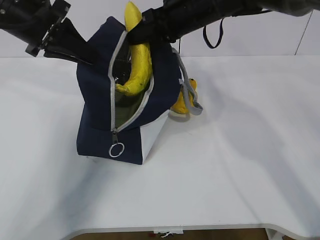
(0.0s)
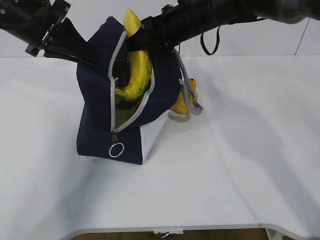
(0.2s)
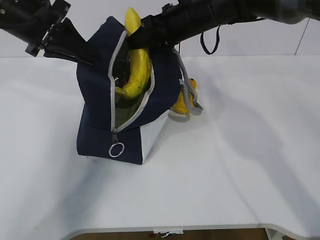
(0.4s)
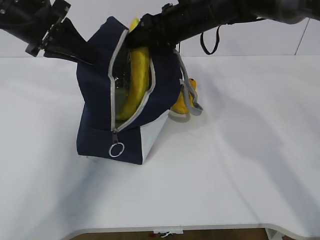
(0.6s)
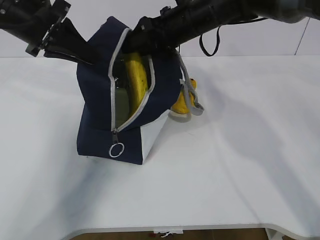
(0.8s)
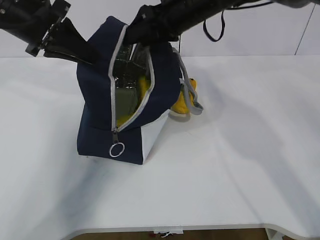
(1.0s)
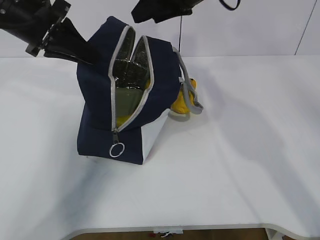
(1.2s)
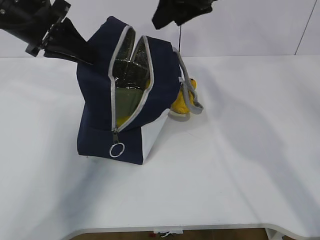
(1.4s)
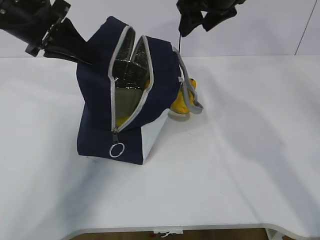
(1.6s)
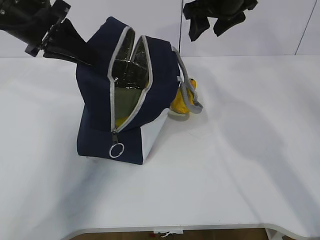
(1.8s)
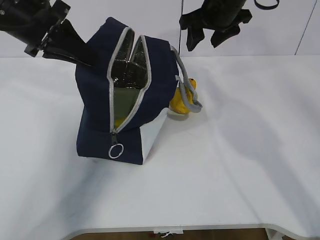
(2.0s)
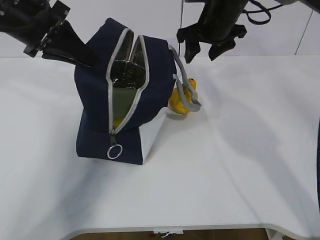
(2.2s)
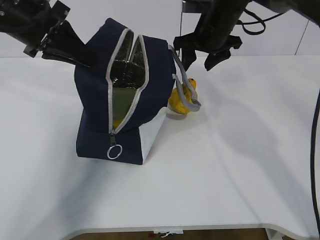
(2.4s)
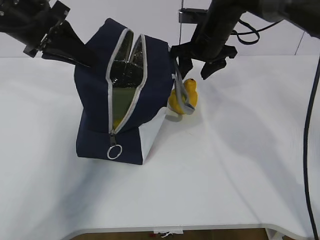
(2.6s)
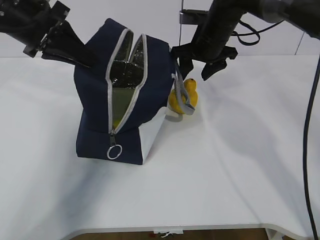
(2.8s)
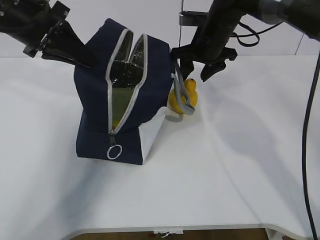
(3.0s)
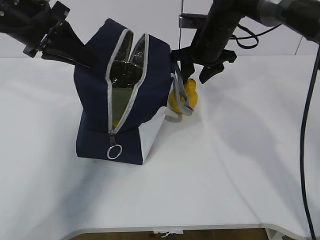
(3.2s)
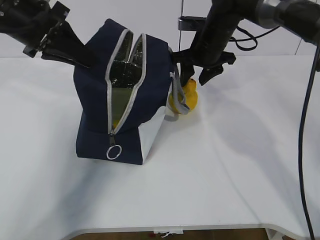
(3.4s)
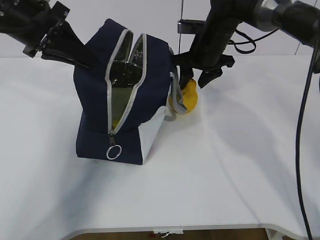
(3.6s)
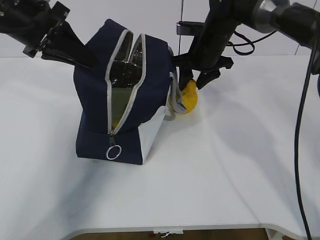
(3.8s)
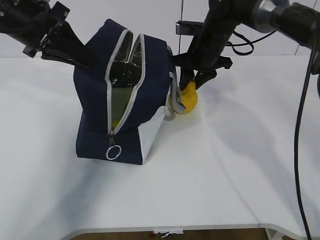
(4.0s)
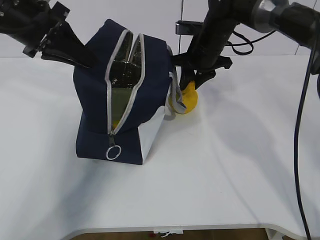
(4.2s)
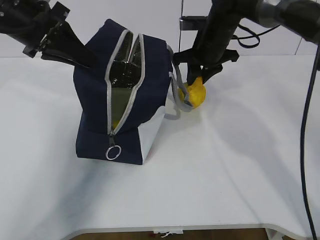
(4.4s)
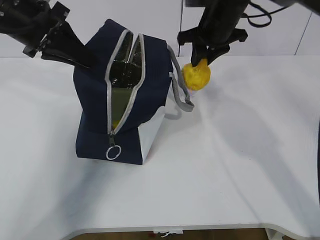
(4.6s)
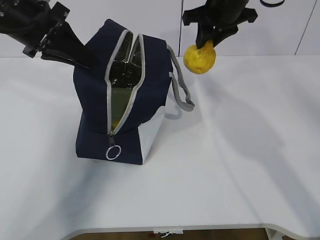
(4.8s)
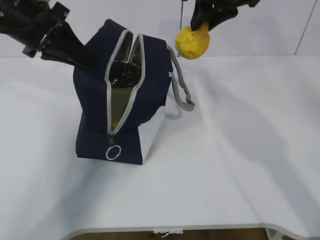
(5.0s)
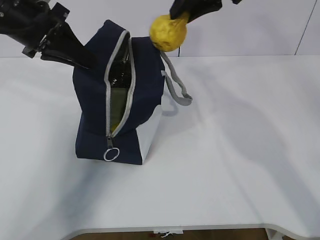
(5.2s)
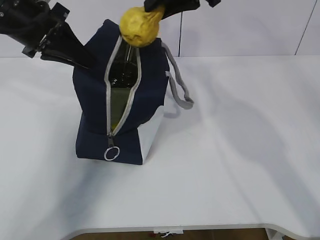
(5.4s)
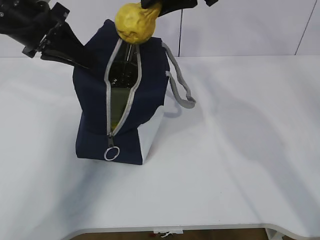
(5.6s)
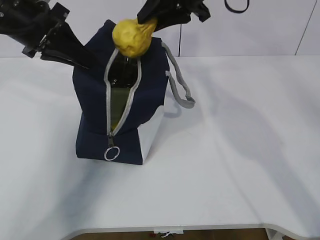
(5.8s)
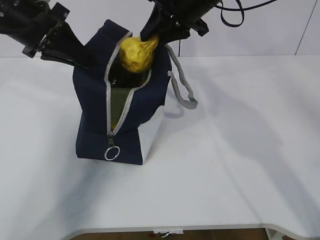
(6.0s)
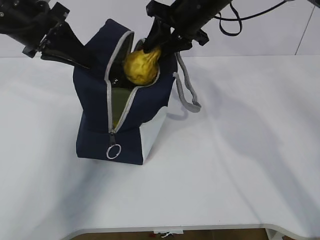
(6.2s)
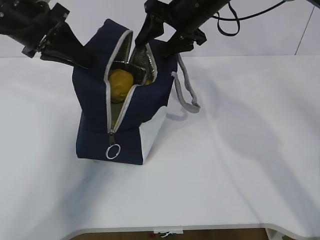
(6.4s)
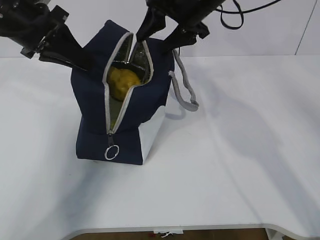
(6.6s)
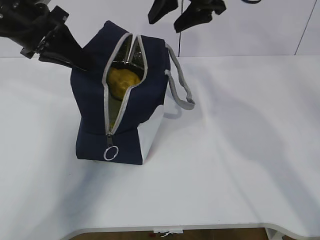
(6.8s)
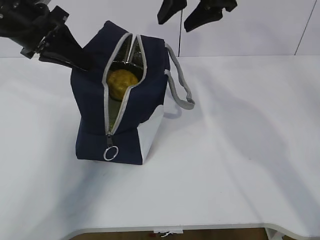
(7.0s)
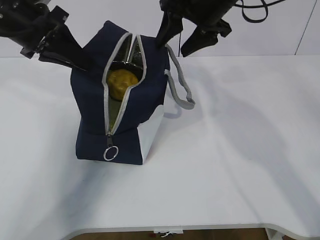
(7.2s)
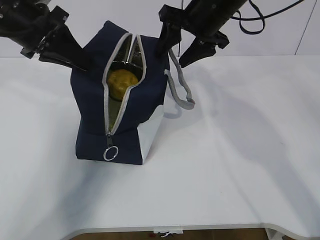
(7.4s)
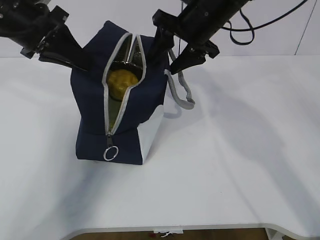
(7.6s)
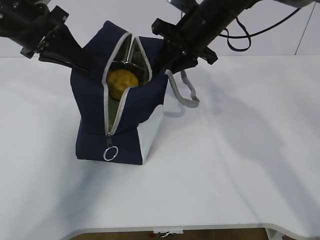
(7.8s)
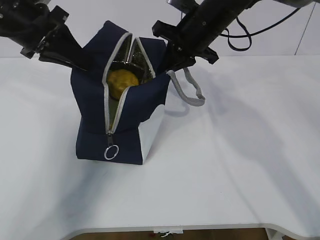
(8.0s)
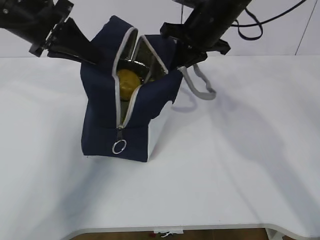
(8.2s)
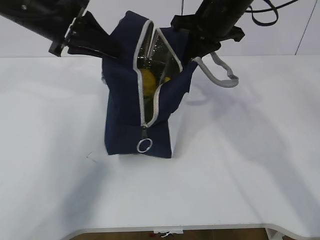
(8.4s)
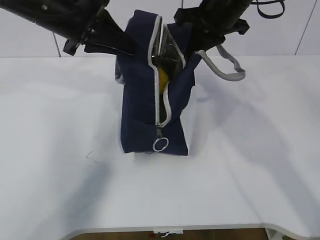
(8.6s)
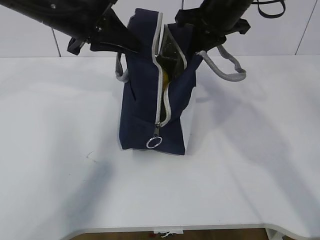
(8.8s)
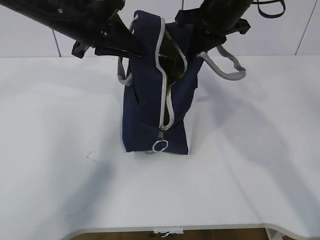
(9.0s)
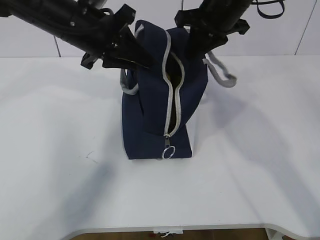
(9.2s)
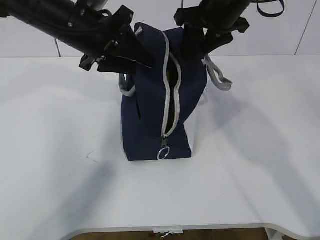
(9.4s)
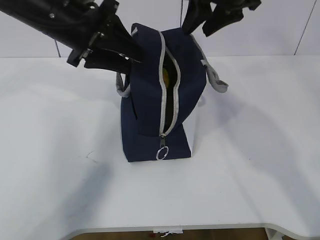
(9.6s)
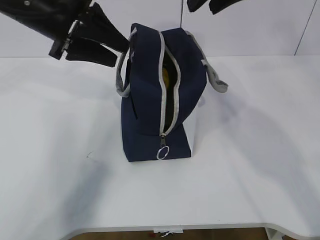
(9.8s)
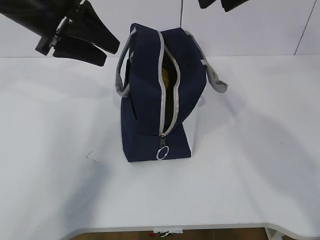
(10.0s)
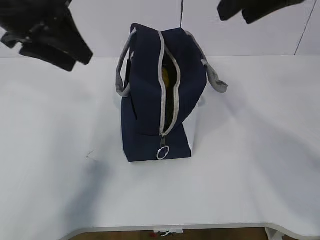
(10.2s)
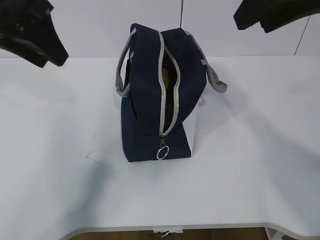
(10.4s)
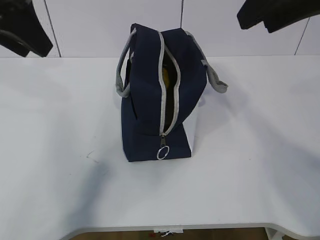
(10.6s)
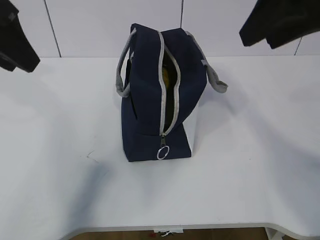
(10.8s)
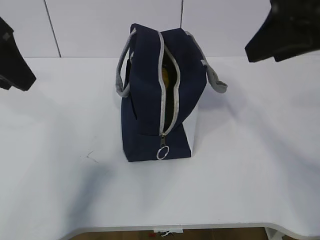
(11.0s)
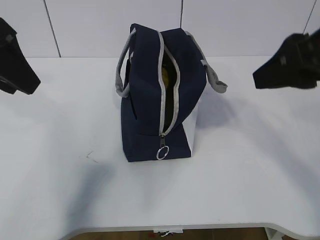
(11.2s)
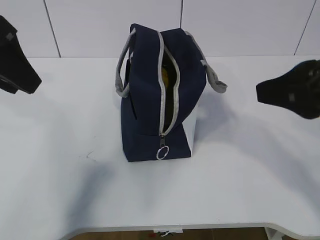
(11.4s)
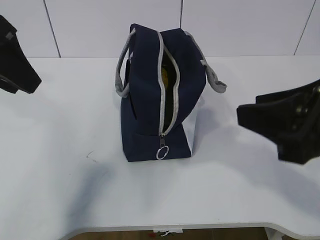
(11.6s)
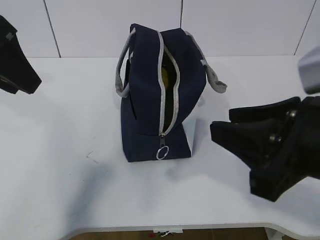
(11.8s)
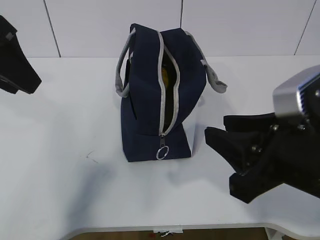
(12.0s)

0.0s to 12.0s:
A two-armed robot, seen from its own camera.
Step, 1.8s to 2.4s: Grab the lunch bag with your right hand.
Step, 2.6s to 3.8s: Move the lunch bag to the right.
0.0s to 1.6s: The right gripper travels upward by about 5 cm, and opens its fingers.
1.6s to 3.0s: The right gripper goes about 10 cm downward.
3.0s to 4.4s: The right gripper closes.
4.4s to 6.0s: The right gripper goes about 10 cm upward.
6.0s to 7.6s: The right gripper opens.
7.6s to 9.0s: The right gripper closes its fingers. Meanwhile the left gripper is displaced to the right by about 10 cm.
9.0s to 10.4s: The left gripper is displaced to the left, backward and upward by roughly 10 cm, and opens its fingers. The right gripper shifts about 20 cm backward and upward, and opens up.
10.4s to 12.0s: The left gripper is displaced backward by some 5 cm. Meanwhile the right gripper heads downward and backward, covering about 20 cm.

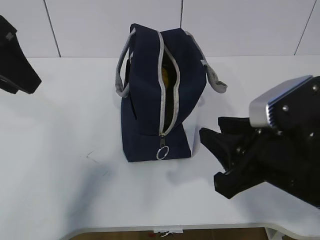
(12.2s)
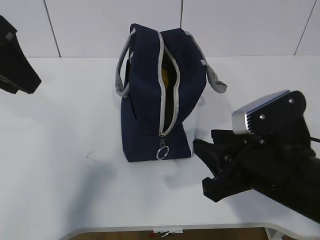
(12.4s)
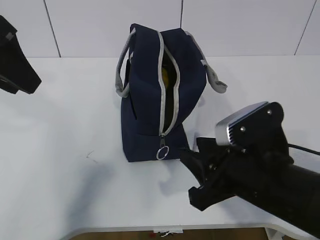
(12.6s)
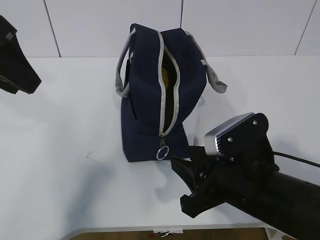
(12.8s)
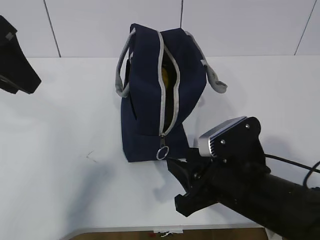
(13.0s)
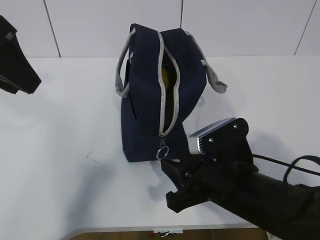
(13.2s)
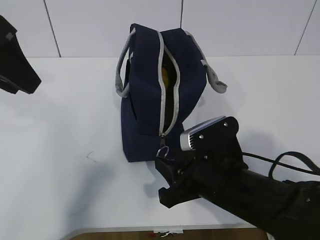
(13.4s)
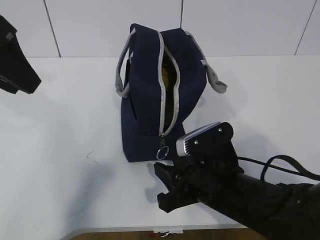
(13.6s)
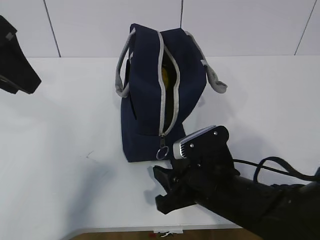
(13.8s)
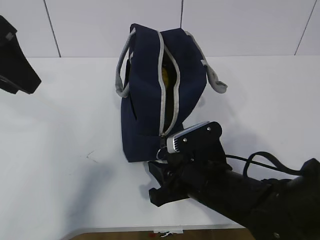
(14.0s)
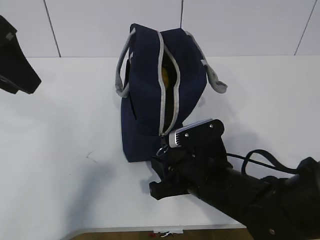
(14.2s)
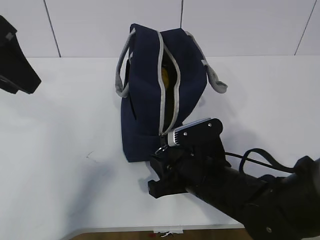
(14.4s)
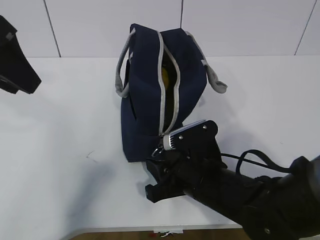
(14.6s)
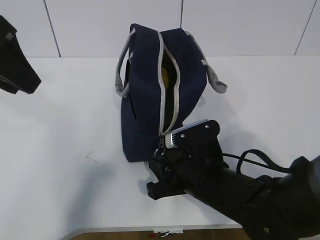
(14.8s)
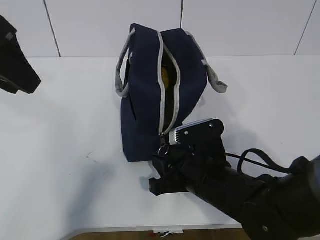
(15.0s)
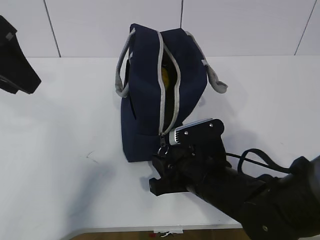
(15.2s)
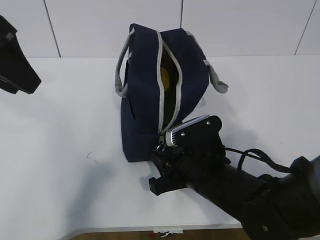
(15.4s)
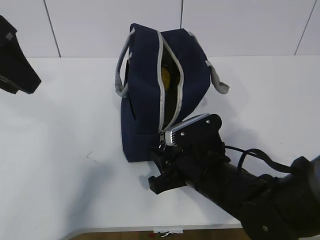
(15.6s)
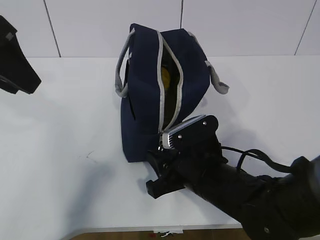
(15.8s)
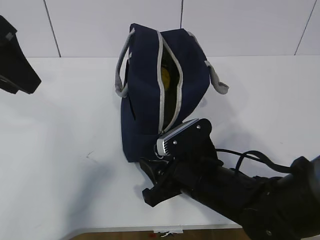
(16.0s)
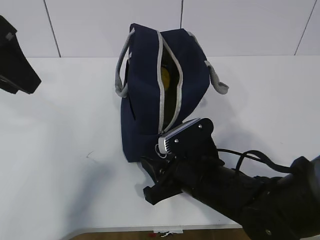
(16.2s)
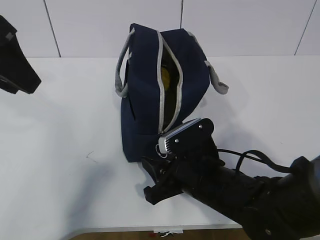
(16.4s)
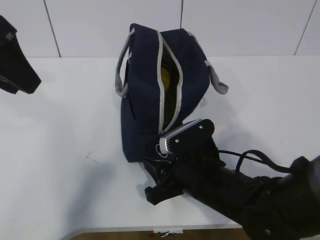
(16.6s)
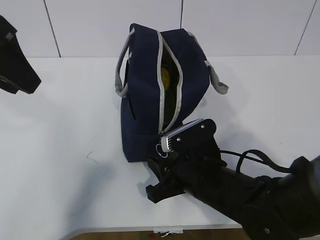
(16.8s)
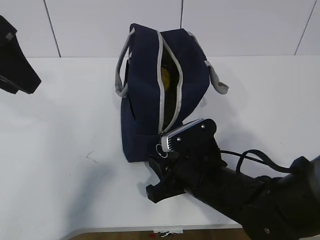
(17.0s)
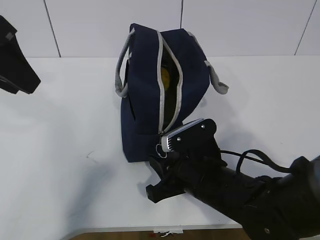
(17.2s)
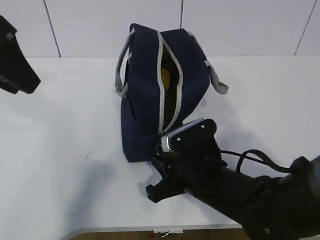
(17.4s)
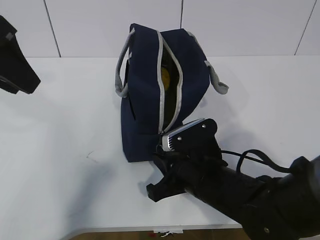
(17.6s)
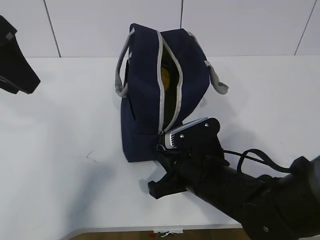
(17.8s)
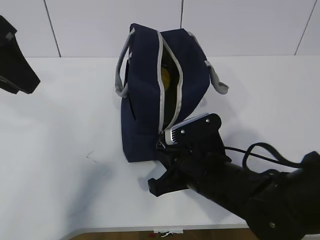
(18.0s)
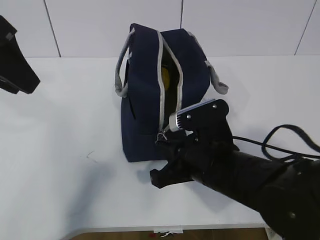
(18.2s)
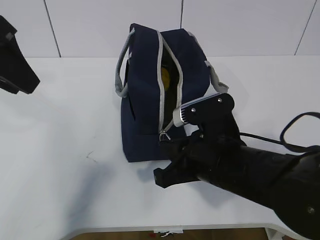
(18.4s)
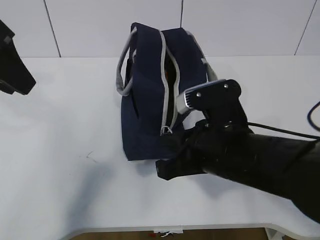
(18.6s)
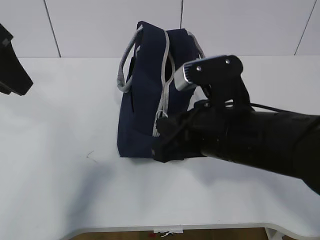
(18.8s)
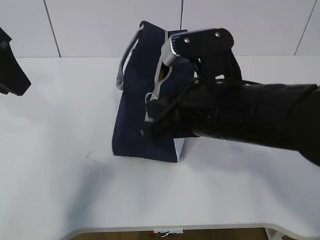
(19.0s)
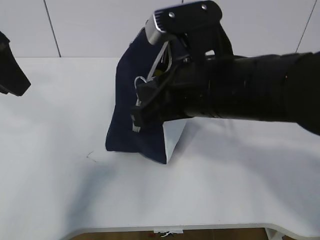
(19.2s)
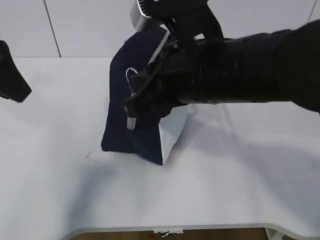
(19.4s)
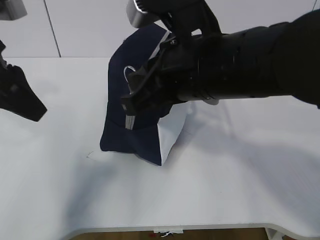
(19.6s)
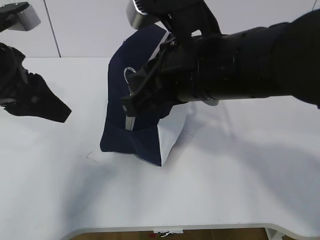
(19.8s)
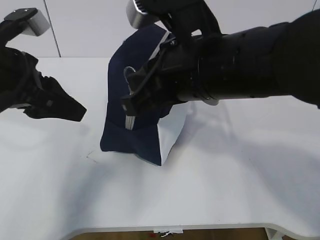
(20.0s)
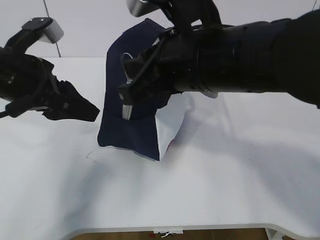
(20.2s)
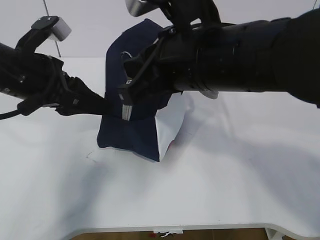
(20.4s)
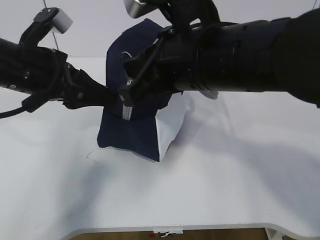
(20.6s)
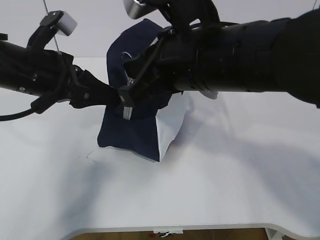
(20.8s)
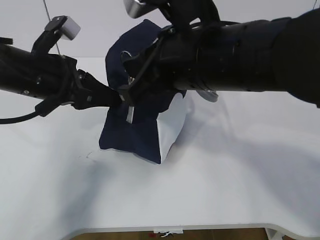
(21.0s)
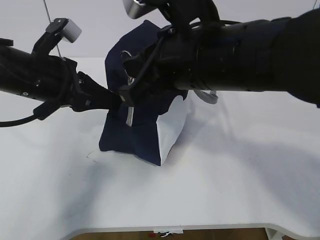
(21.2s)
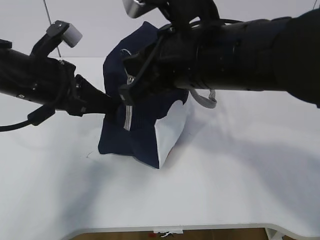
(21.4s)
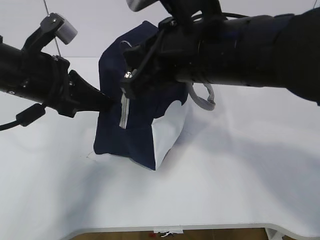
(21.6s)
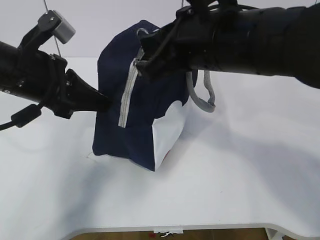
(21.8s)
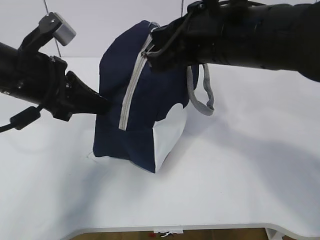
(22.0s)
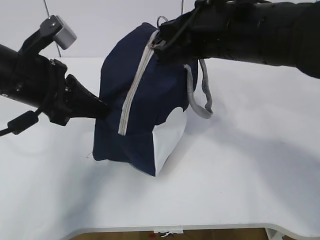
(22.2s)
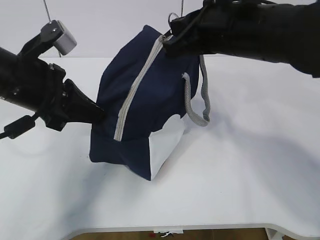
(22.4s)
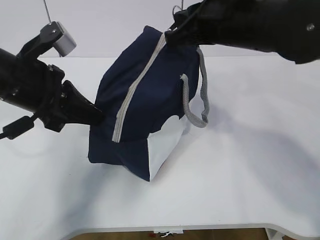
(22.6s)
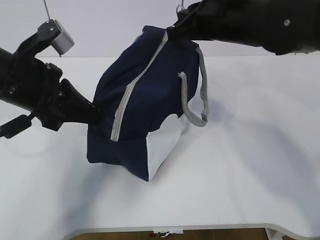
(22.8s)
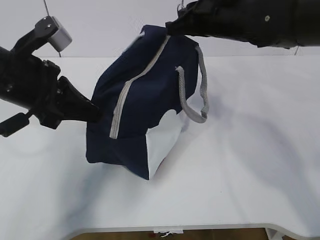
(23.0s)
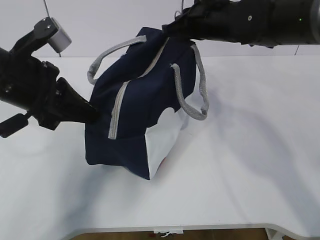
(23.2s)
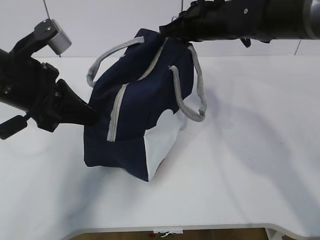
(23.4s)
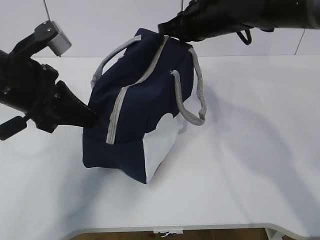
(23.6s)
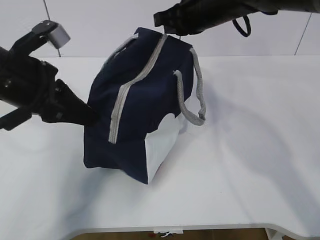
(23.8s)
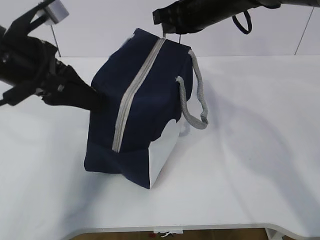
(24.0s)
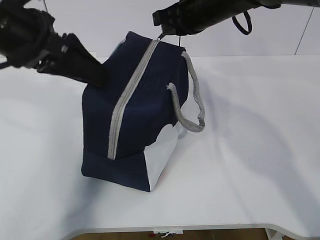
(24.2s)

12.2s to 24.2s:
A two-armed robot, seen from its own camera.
Step, 15.8s to 18.4s: Pull the zipper with your right hand.
12.2s to 13.8s: The right gripper heads downward and to the left, covering some 10 cm.
13.8s to 16.6s: The grippers make only small movements.
16.6s to 18.2s: The right gripper closes up.
18.2s to 19.8s: The right gripper shifts roughly 15 cm upward. Meanwhile the left gripper is displaced downward by some 5 cm.
19.8s to 21.2s: The left gripper goes roughly 5 cm downward, and closes up.
21.2s to 22.6s: The right gripper heads forward and to the right, covering roughly 10 cm.
22.6s to 24.2s: The right gripper heads forward, covering approximately 10 cm; the left gripper shifts roughly 5 cm upward, and opens.
